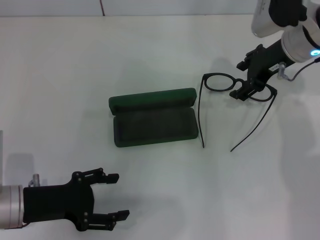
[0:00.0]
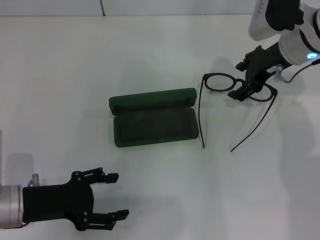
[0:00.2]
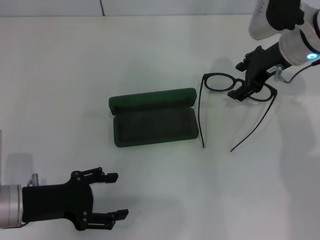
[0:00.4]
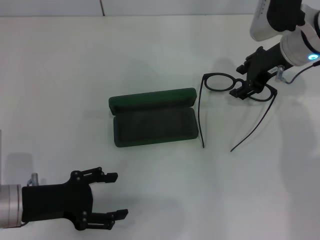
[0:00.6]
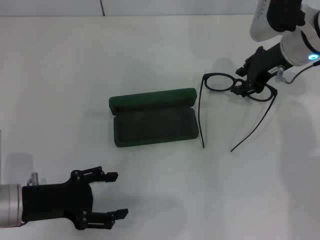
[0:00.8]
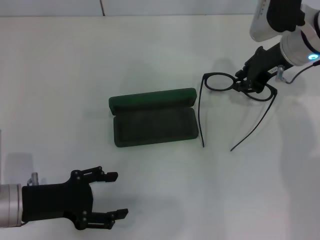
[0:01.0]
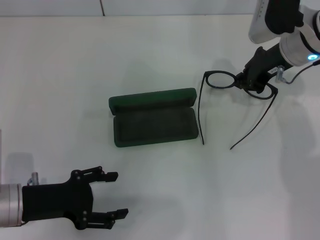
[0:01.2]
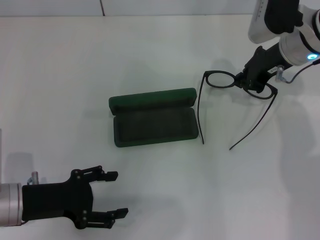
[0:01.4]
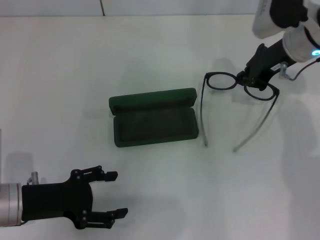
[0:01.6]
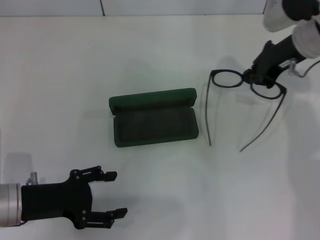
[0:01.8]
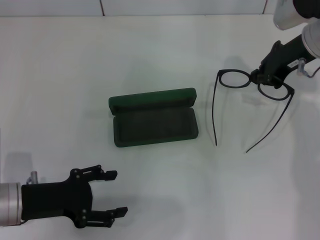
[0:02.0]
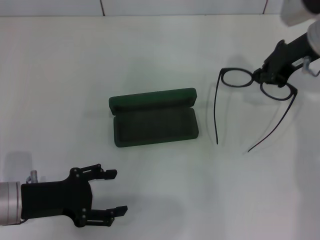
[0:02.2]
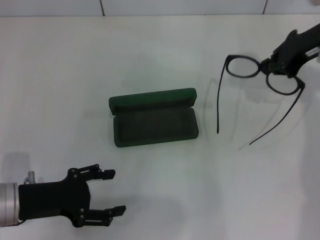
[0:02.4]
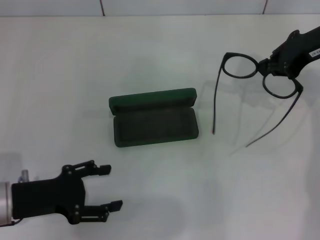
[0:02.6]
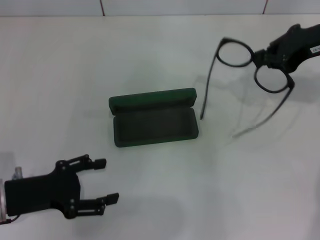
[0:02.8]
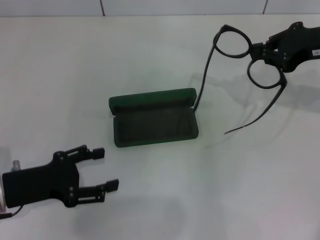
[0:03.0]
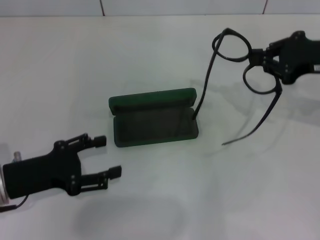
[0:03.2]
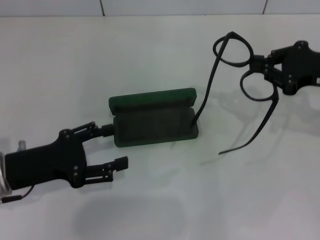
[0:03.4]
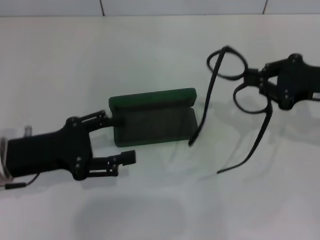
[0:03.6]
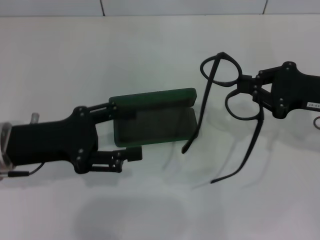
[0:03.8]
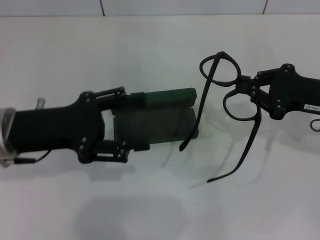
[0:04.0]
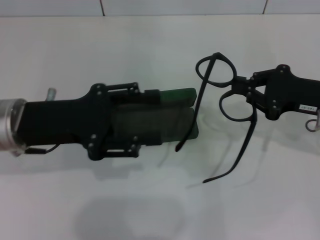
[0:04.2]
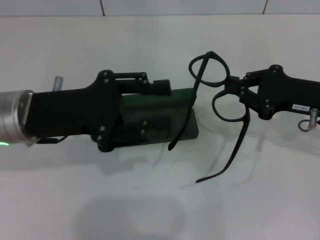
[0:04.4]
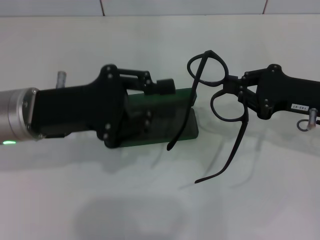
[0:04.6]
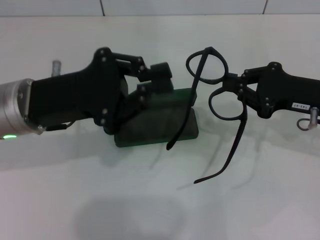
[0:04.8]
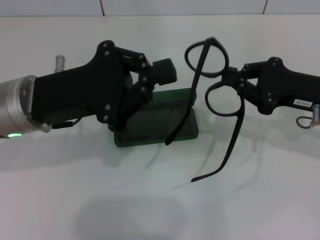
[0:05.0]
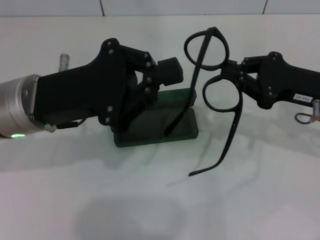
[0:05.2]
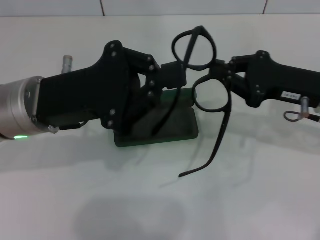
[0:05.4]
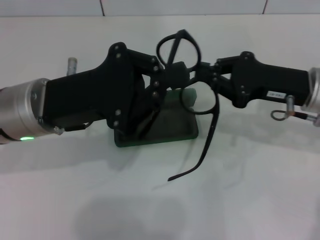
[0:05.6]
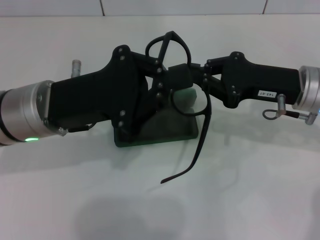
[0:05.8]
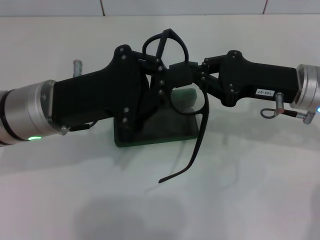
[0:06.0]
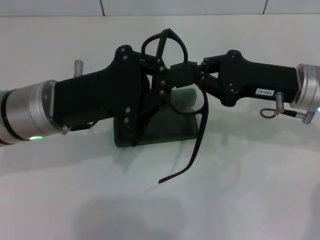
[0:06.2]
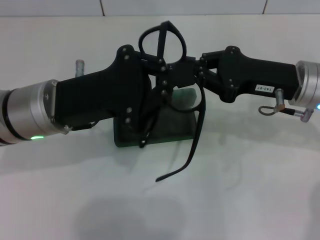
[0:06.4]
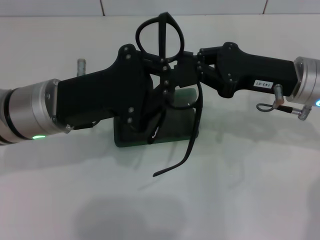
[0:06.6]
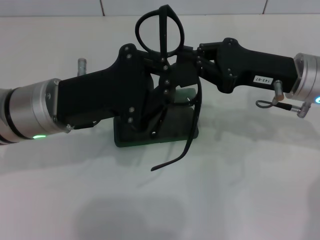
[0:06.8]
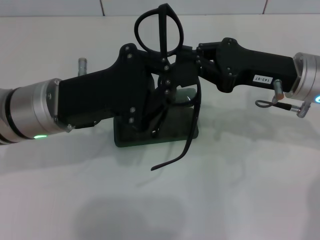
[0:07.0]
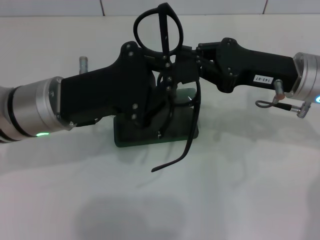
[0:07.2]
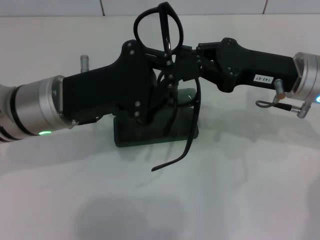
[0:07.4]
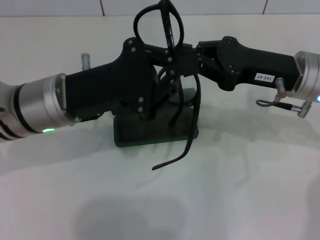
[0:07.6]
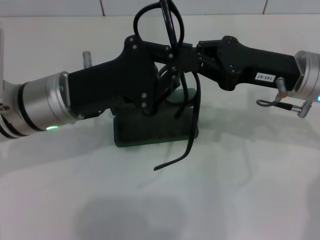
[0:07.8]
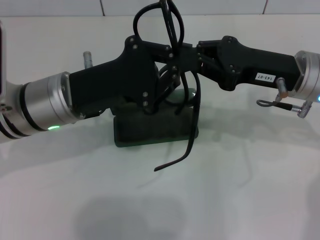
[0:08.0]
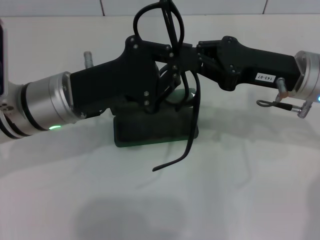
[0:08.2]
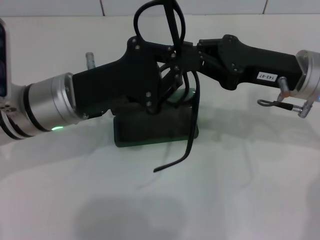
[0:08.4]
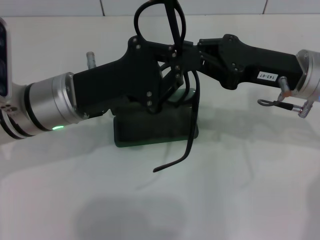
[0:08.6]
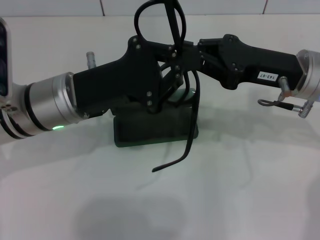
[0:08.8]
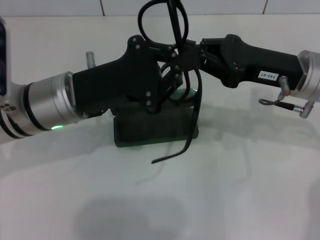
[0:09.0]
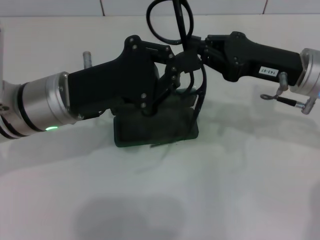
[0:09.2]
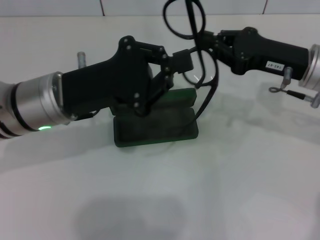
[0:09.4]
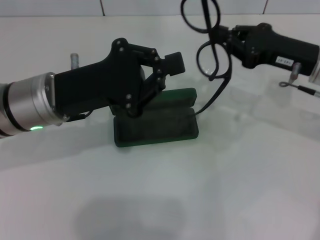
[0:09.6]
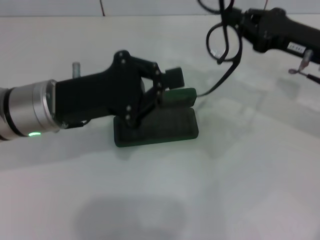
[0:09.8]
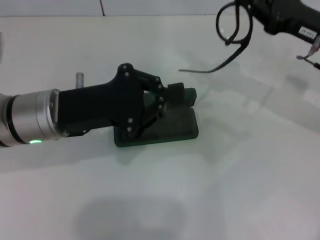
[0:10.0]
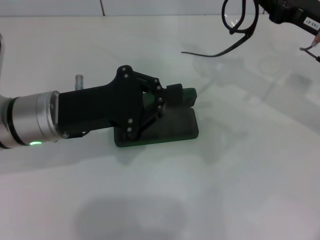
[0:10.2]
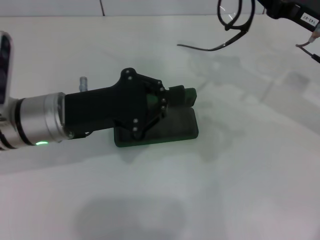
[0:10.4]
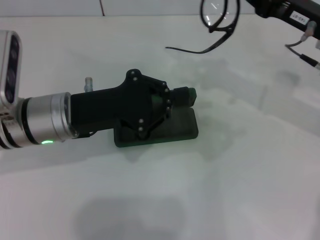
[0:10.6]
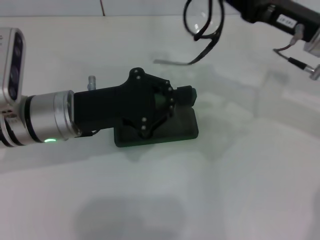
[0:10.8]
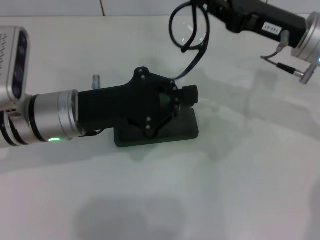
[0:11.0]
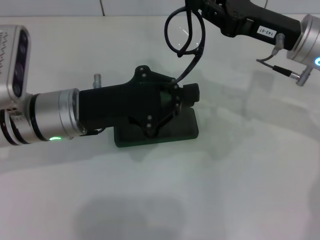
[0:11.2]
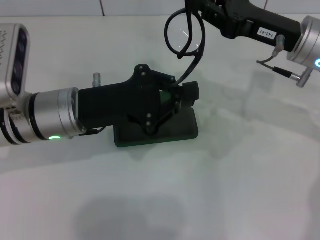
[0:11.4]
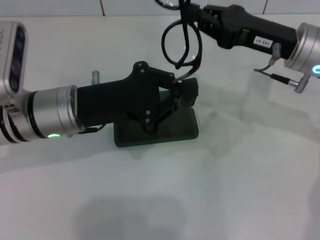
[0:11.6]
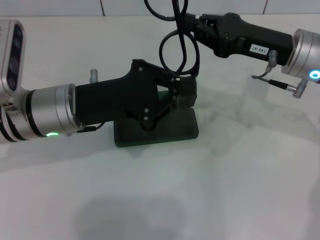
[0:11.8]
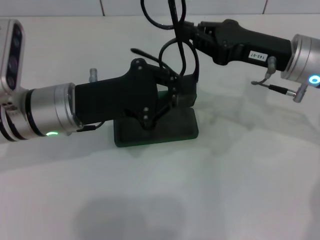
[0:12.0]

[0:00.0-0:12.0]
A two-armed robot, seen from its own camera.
0:00.0 to 0:01.6: The right gripper closes its fingers.
0:01.6 to 0:03.0: The right gripper travels to the right by approximately 10 cm.
0:03.0 to 0:04.4: The left gripper goes about 15 cm upward, forward and to the right. The right gripper moves downward and backward, approximately 10 cm.
0:04.4 to 0:06.0: The left gripper closes its fingers. The right gripper heads to the left, covering roughly 5 cm.
0:06.0 to 0:07.6: The grippers move only a little.
0:07.6 to 0:09.0: Neither gripper changes place.
0:09.0 to 0:10.4: The right gripper heads to the right, covering some 5 cm.
0:10.4 to 0:12.0: The right gripper moves to the left, roughly 5 cm.

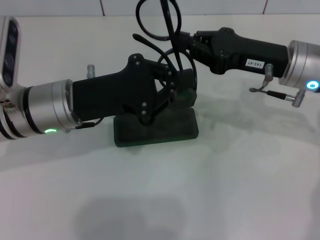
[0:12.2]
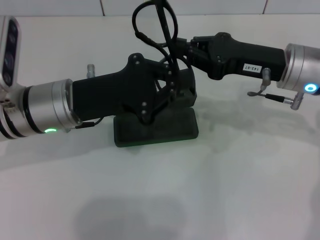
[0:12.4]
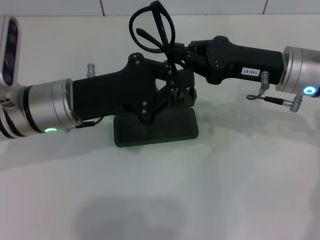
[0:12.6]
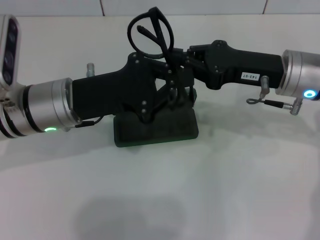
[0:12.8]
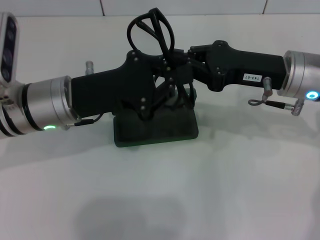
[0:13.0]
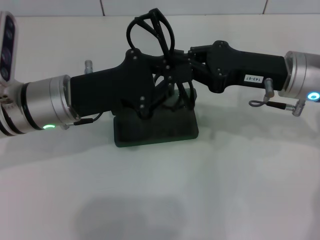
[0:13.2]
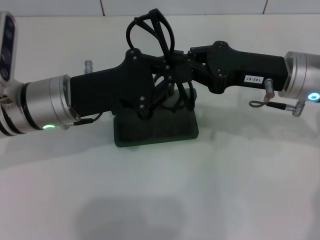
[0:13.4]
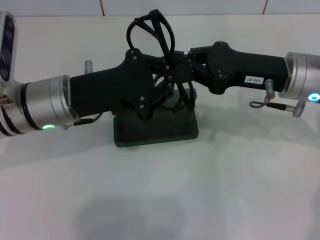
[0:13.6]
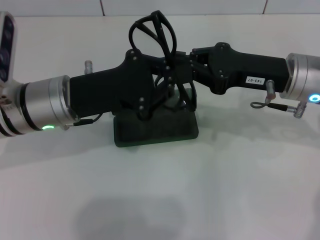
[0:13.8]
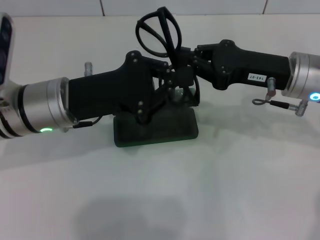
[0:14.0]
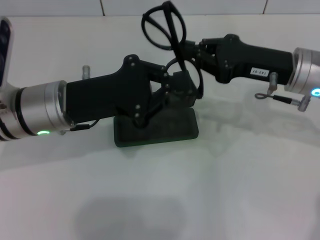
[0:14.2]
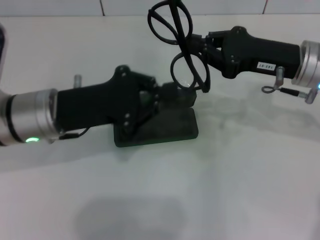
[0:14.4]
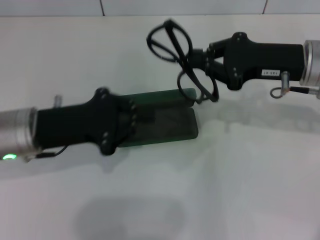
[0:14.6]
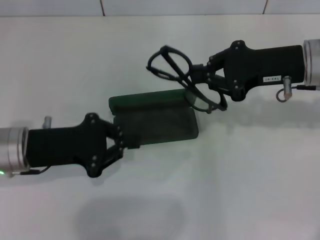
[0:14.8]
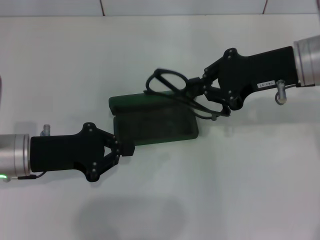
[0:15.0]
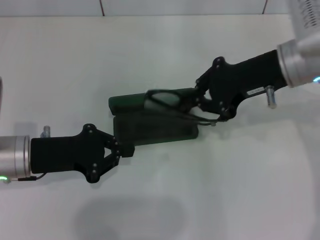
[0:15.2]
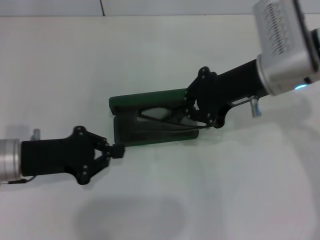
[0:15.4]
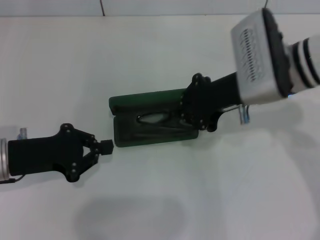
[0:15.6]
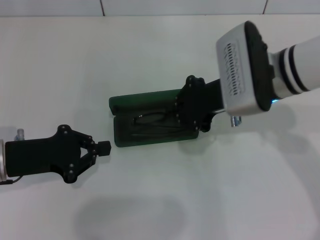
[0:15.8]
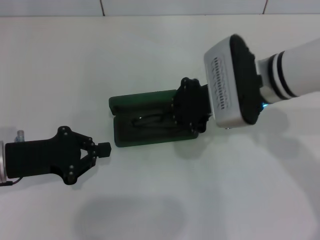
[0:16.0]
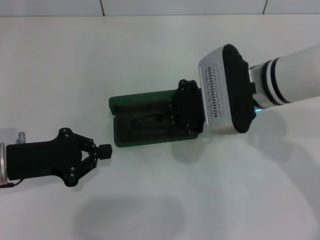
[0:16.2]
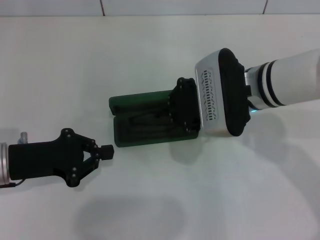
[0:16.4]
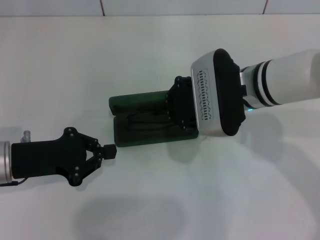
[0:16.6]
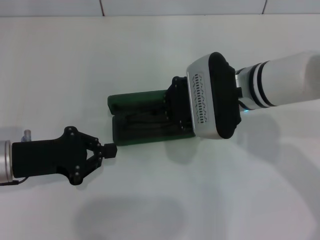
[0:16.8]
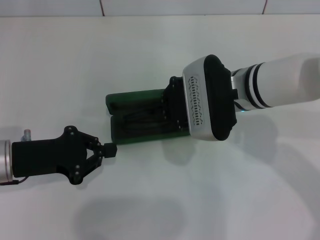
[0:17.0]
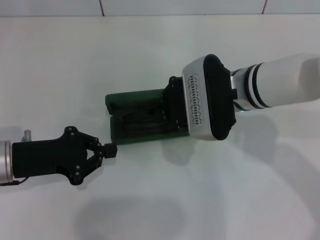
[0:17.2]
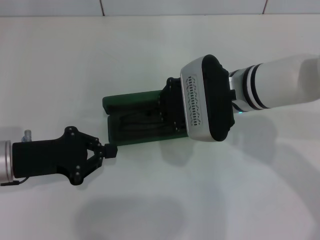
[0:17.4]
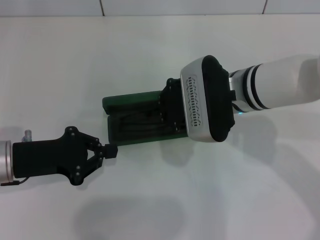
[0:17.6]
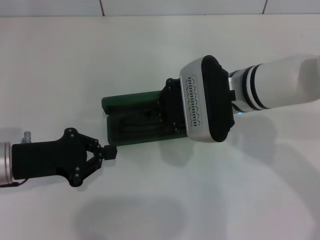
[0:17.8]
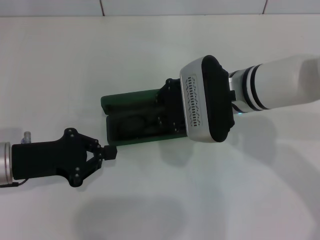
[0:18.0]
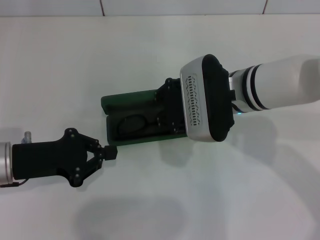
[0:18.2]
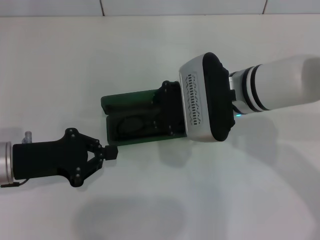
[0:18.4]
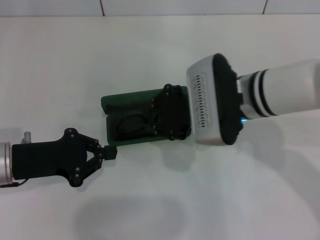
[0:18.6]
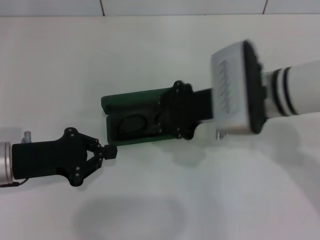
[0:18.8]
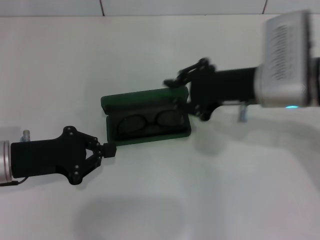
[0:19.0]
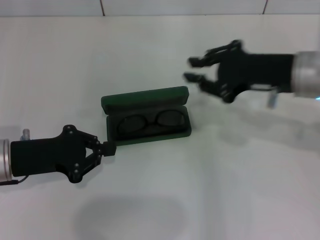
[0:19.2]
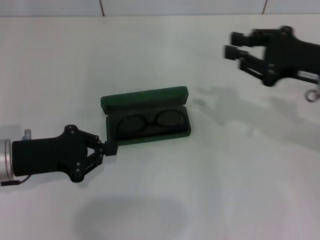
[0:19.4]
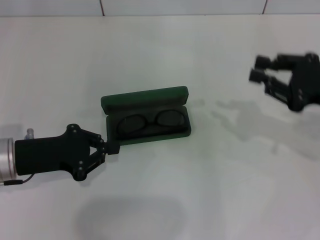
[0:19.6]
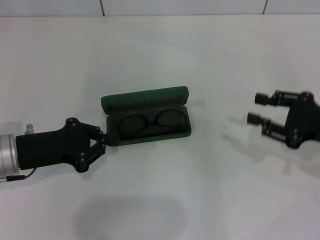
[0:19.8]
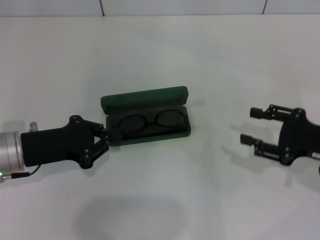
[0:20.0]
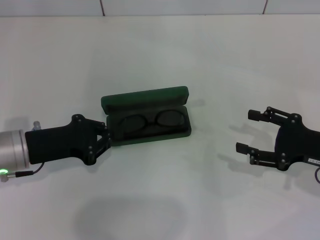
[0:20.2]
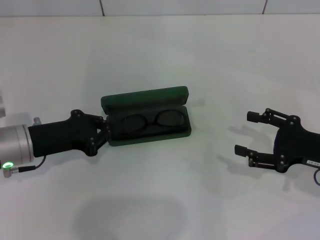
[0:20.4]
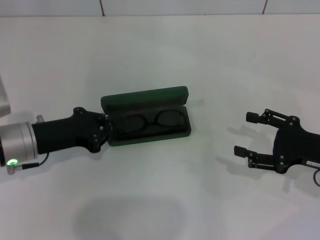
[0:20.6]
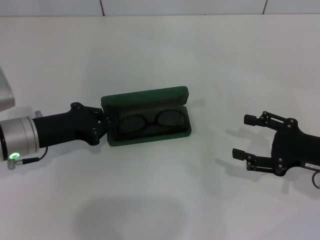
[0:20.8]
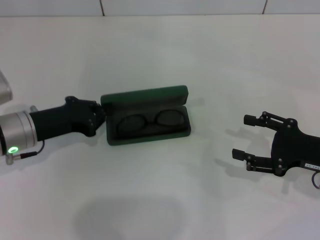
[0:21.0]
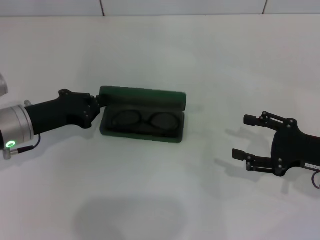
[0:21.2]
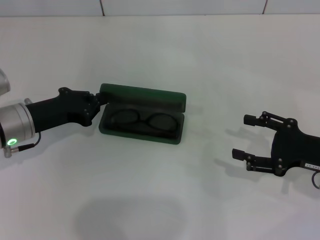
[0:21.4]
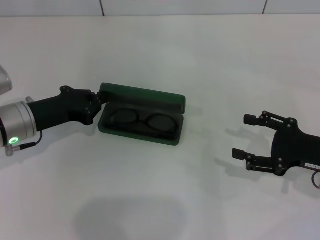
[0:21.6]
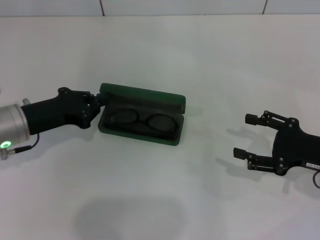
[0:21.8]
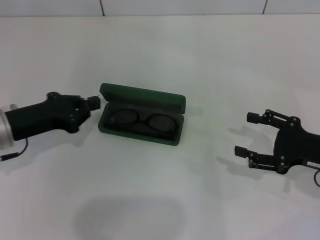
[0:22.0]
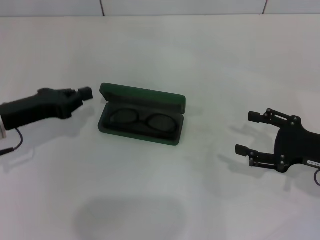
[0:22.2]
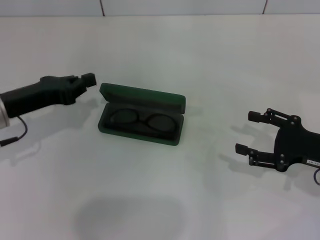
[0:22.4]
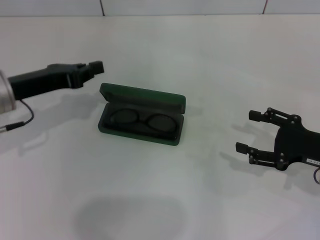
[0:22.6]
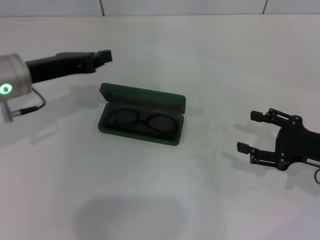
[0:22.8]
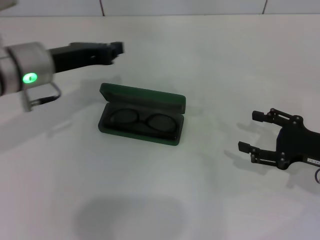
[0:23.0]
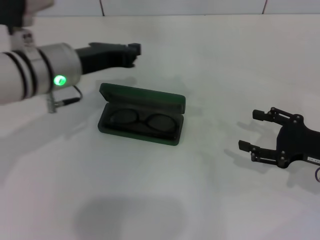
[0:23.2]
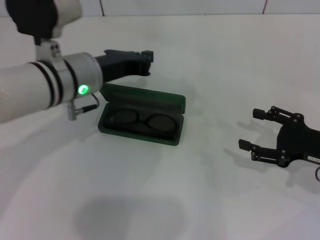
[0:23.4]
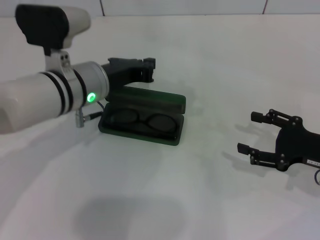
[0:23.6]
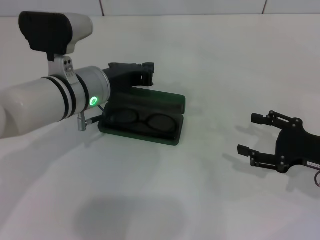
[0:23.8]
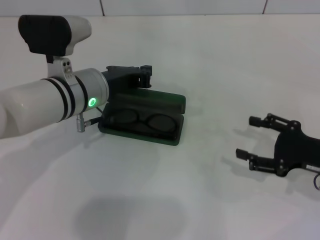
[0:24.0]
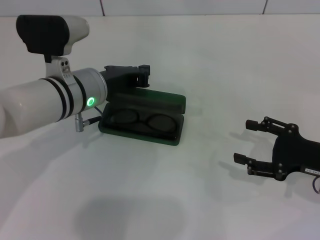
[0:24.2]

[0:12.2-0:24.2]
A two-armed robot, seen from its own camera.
Step, 0:13.0 to 0:18.2: Put the glasses into the case with your right hand.
0:12.2 to 0:13.8: There are only small adjustments of the grippers.
0:13.8 to 0:15.2: The left gripper is displaced to the left and downward by approximately 10 cm. Meanwhile the right gripper ends up some 5 cm from where it was.
0:15.2 to 0:16.6: The right gripper goes about 10 cm to the left and downward.
0:16.6 to 0:18.2: Both grippers stay about where they are.
0:18.2 to 0:19.8: The right gripper travels to the right by about 20 cm.
0:19.8 to 0:21.2: The right gripper opens up.
0:21.2 to 0:22.6: The left gripper shifts approximately 5 cm upward.
0:22.6 to 0:24.2: The left gripper travels to the right by approximately 10 cm.
